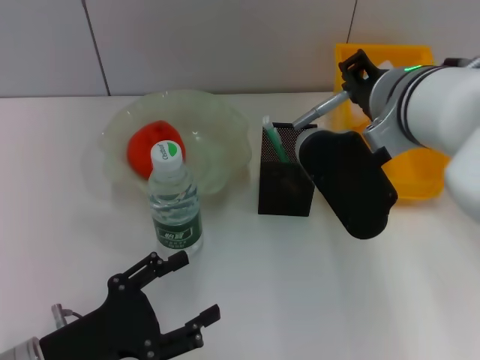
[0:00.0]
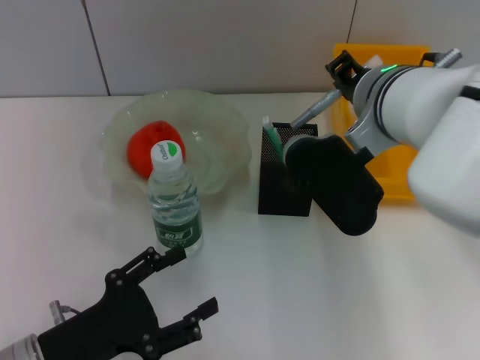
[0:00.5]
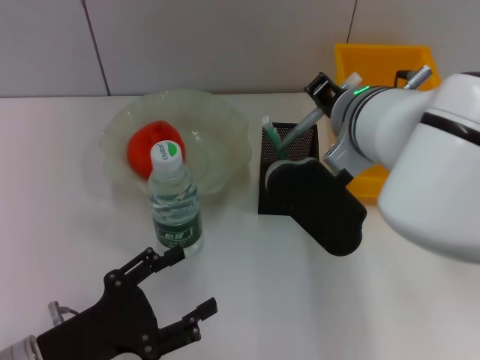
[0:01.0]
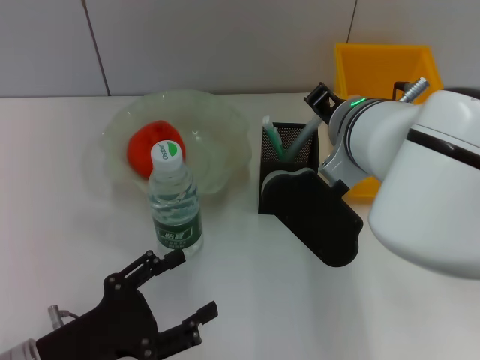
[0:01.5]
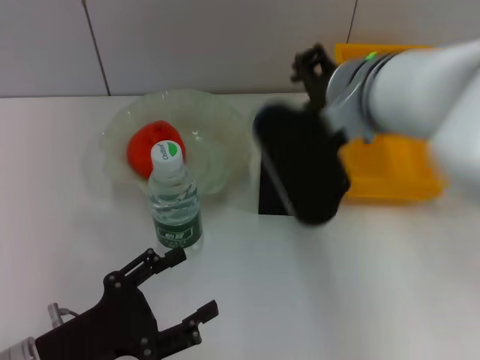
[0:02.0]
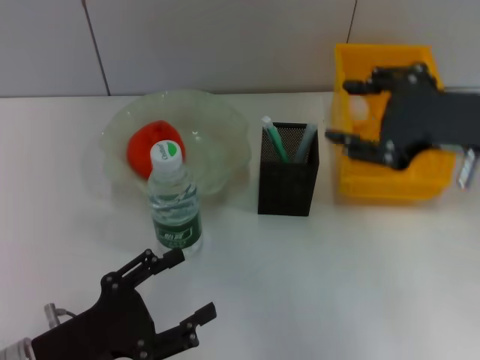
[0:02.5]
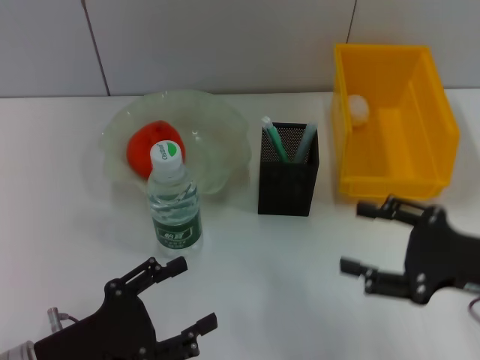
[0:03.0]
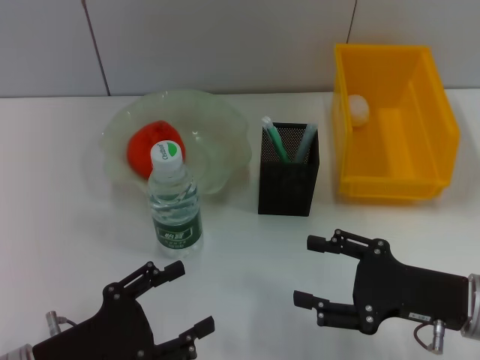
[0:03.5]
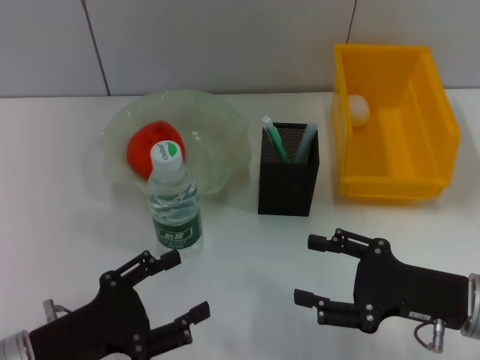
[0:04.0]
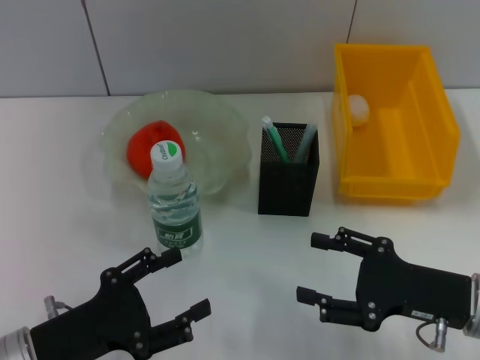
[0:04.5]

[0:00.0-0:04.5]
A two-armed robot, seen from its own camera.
0:00.0 to 0:02.0: The right gripper opens its fingers.
0:02.0 to 0:04.5: The right gripper moves downward, to the right and backward, some 25 cm, and opens.

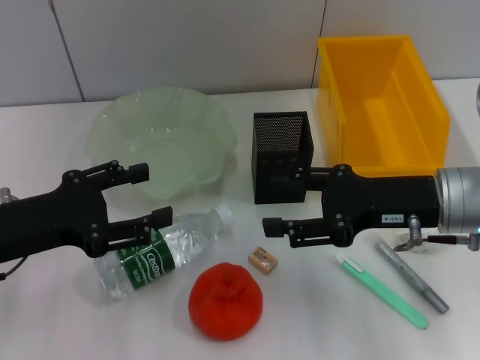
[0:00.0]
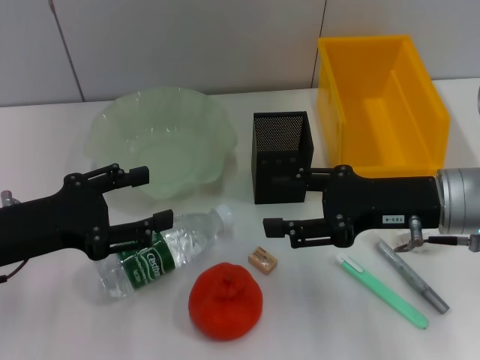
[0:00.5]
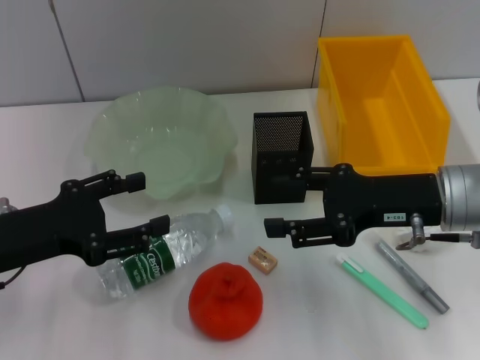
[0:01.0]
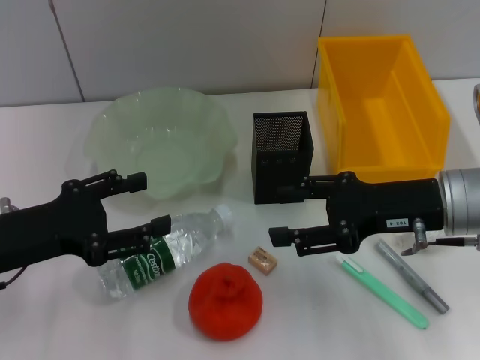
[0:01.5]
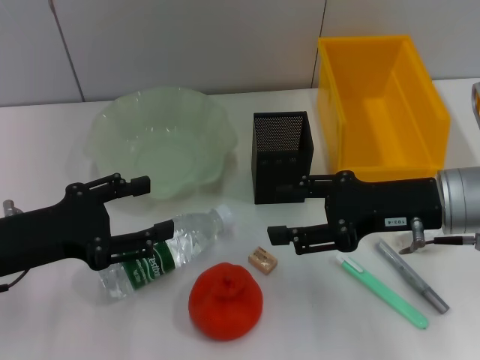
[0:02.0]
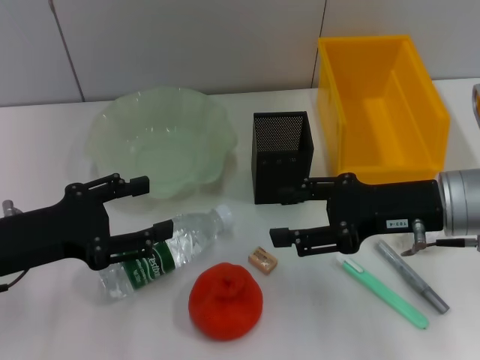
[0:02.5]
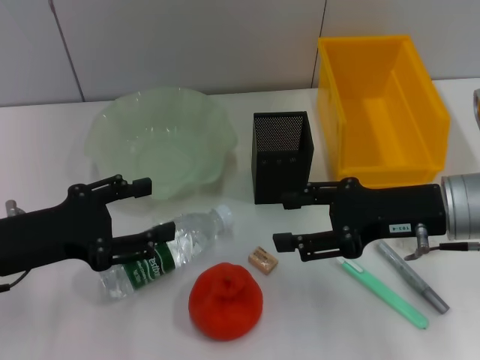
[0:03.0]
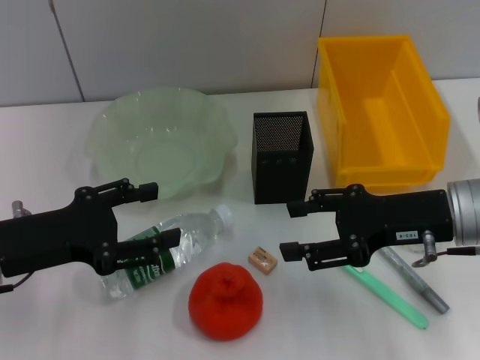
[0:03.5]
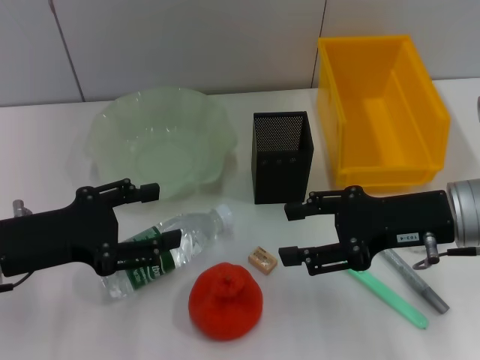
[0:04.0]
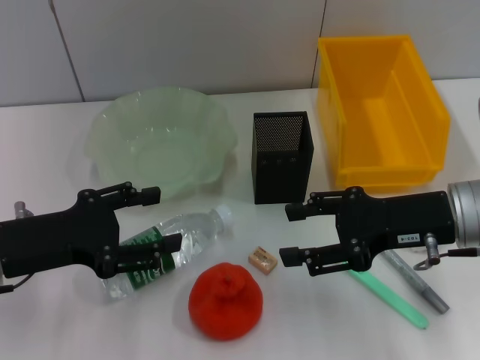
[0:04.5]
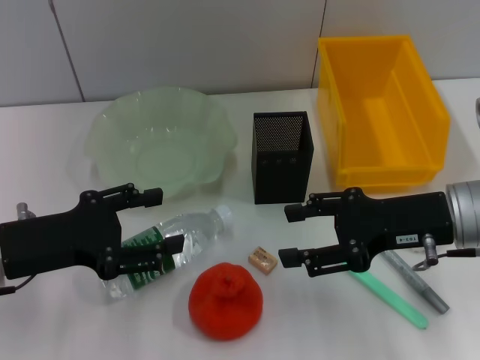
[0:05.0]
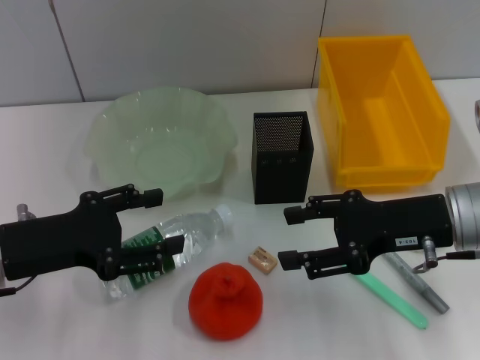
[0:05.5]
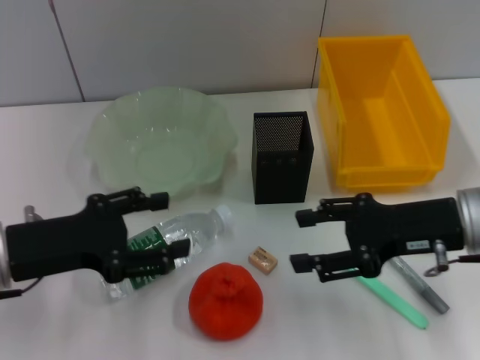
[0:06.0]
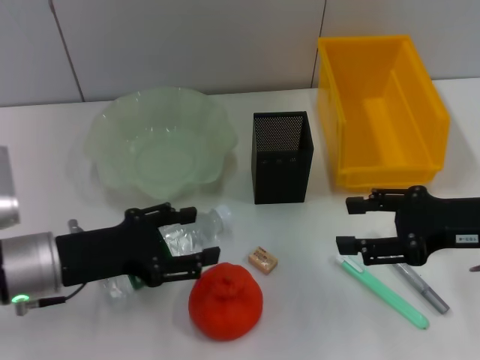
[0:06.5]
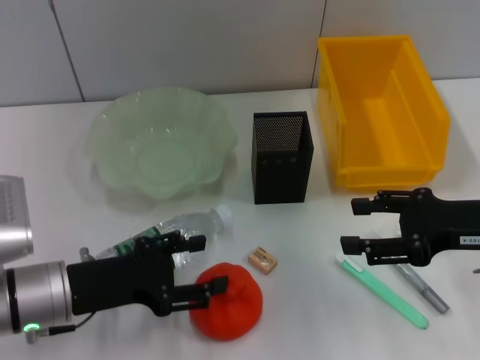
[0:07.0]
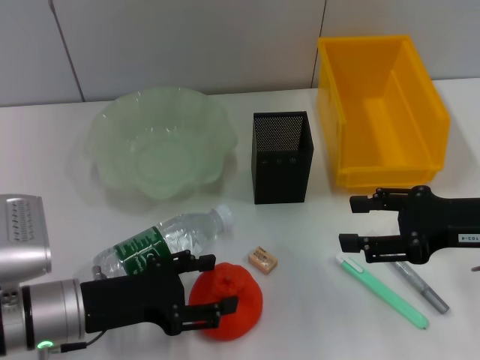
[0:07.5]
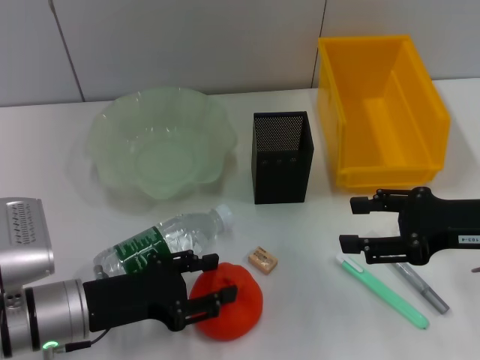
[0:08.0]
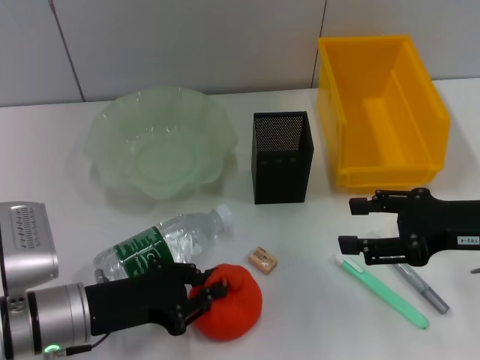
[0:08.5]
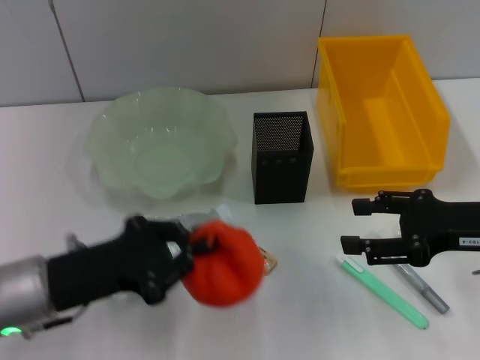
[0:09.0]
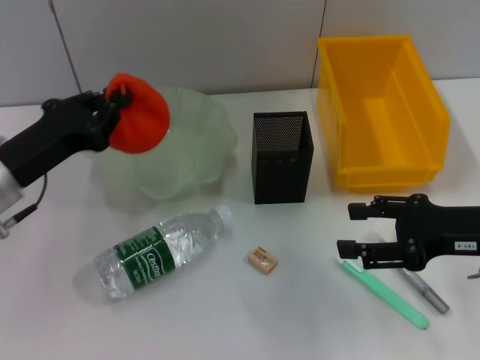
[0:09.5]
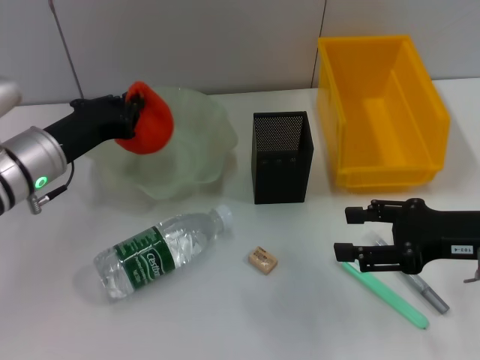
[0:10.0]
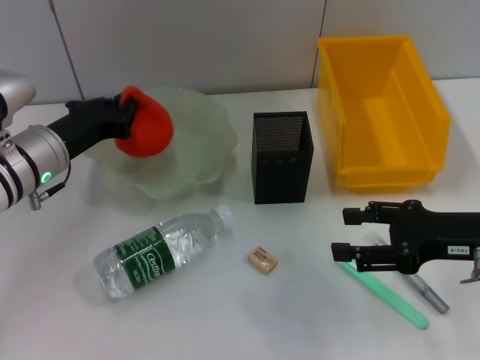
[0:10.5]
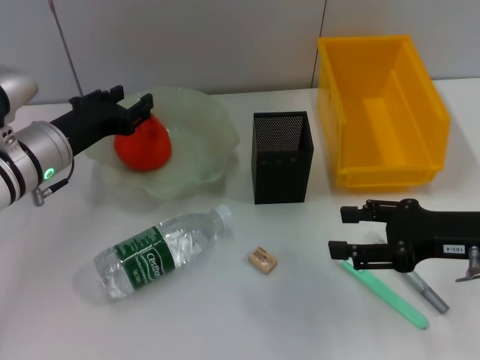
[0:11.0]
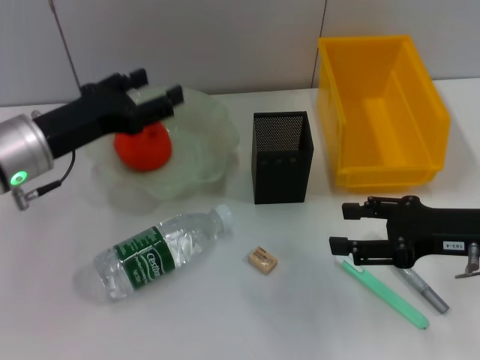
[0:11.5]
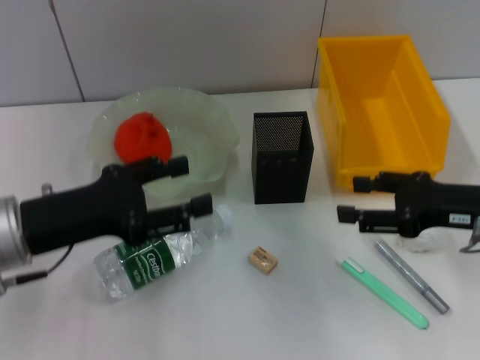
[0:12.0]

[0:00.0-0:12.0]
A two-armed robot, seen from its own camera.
Step, 0:00.0 to 0:08.5: Grab the orange with the left hand.
Step, 0:09.0 to 0:11.0: Place the orange into the fruit bowl with the left hand.
0:00.0 to 0:02.0: Neither gripper changes place.
0:02.0 to 0:04.0: The two grippers keep their place.
0:04.0 to 0:06.0: The two grippers keep their place.
0:06.0 to 0:08.0: The left gripper goes roughly 10 cm downward.
0:08.0 to 0:10.0: The left gripper travels forward and upward by about 15 cm, and closes up.
0:10.0 to 0:12.0: The left gripper goes about 10 cm backward, and opens.

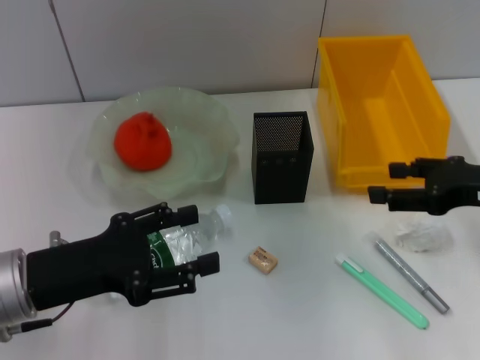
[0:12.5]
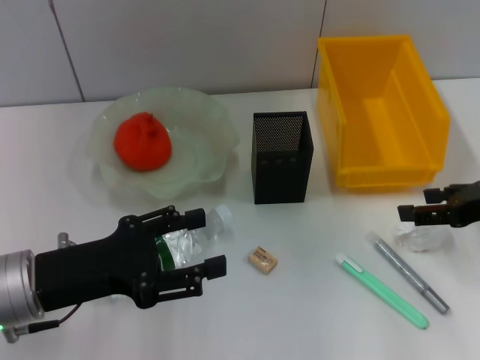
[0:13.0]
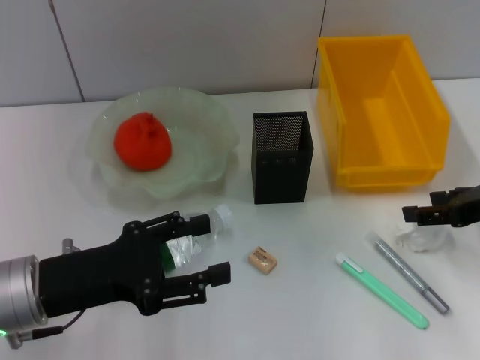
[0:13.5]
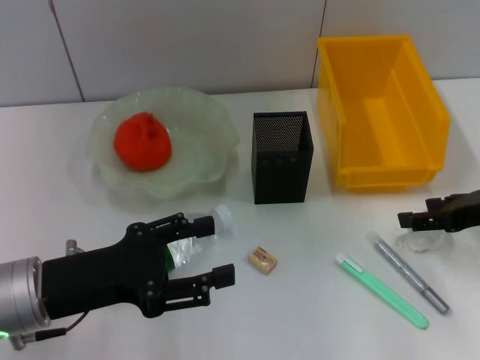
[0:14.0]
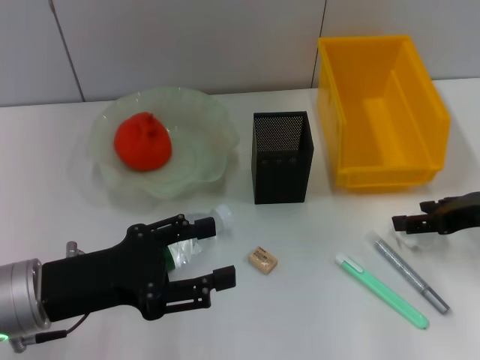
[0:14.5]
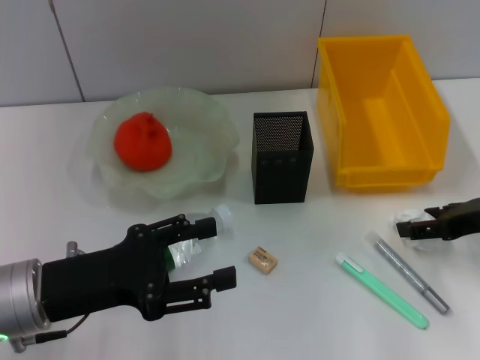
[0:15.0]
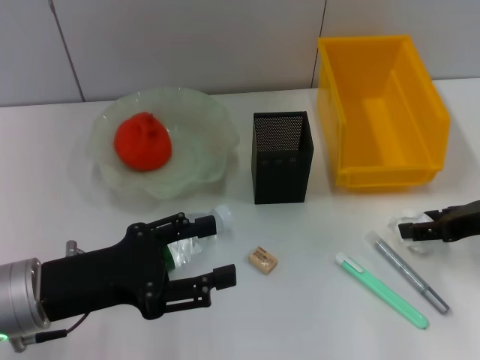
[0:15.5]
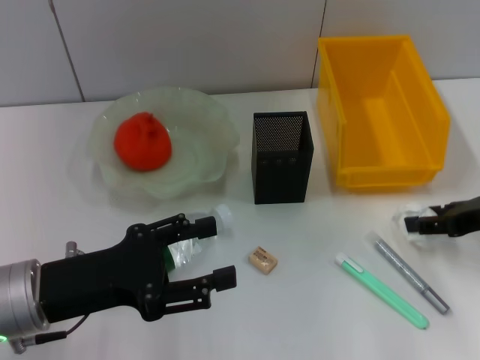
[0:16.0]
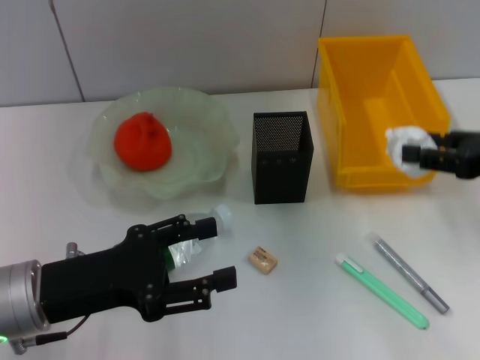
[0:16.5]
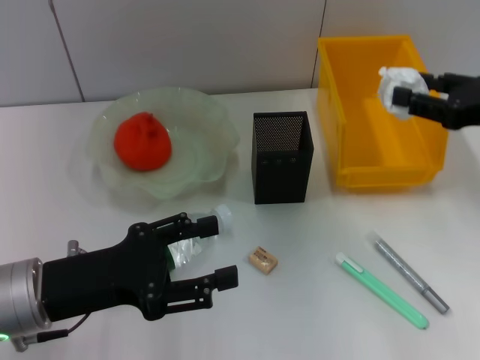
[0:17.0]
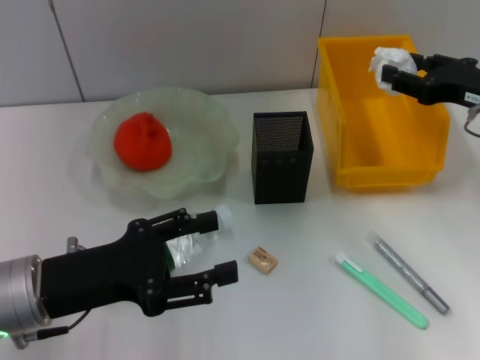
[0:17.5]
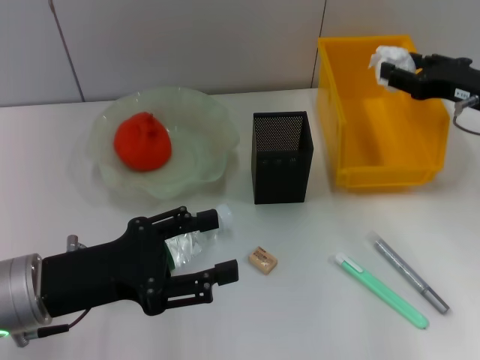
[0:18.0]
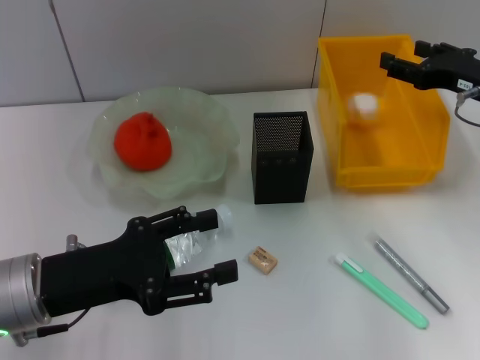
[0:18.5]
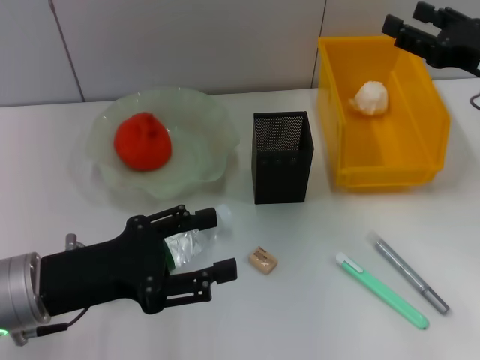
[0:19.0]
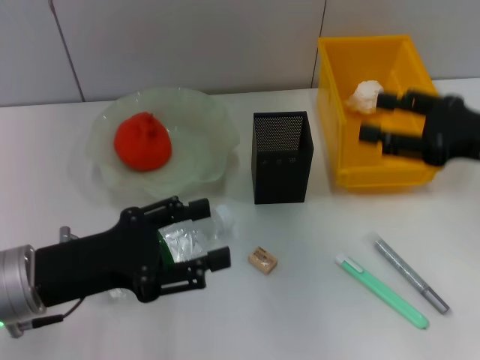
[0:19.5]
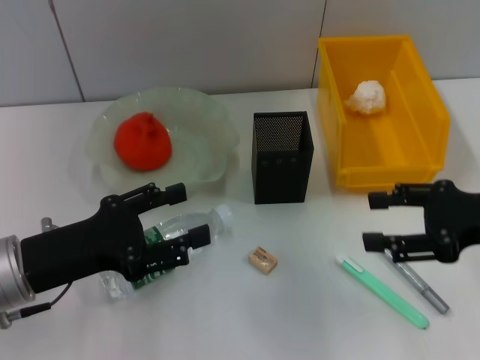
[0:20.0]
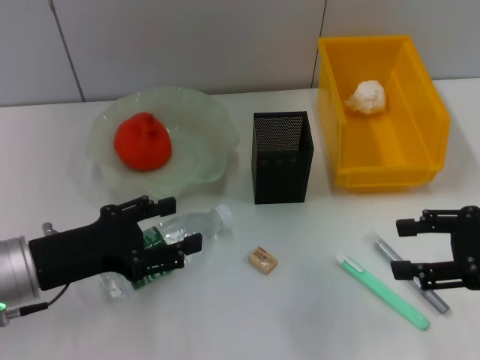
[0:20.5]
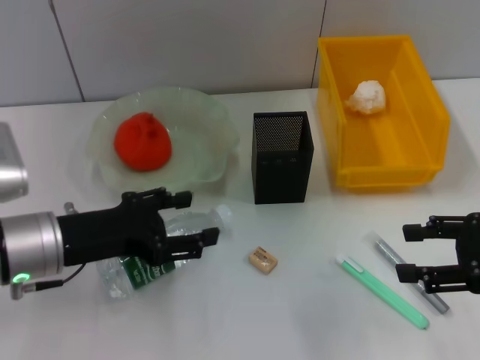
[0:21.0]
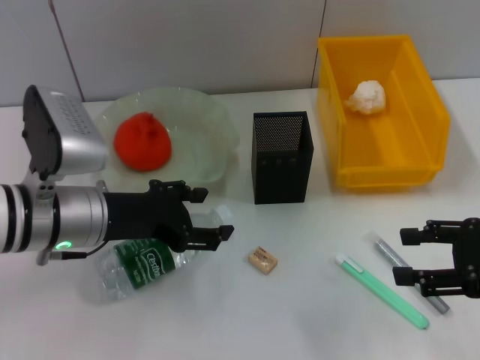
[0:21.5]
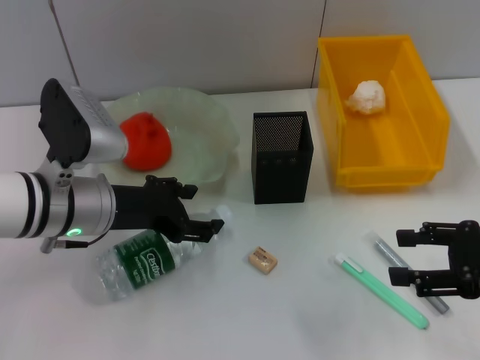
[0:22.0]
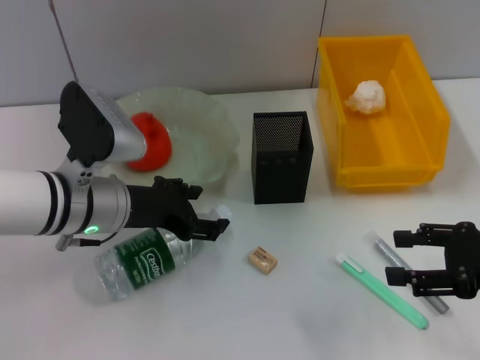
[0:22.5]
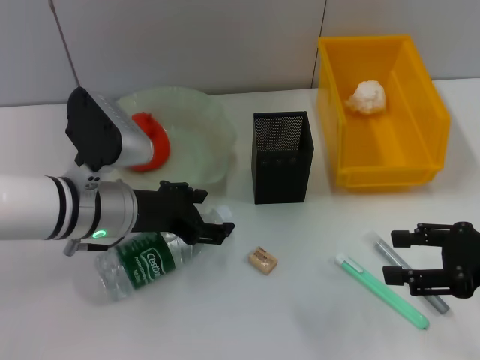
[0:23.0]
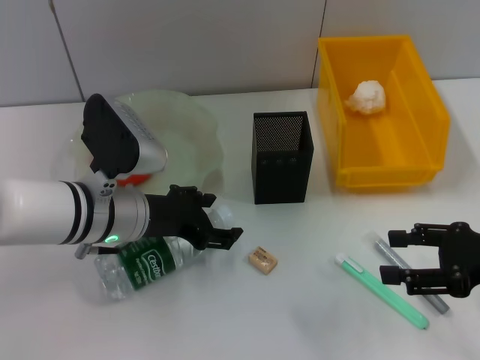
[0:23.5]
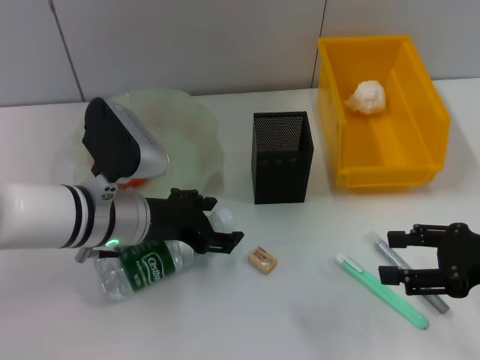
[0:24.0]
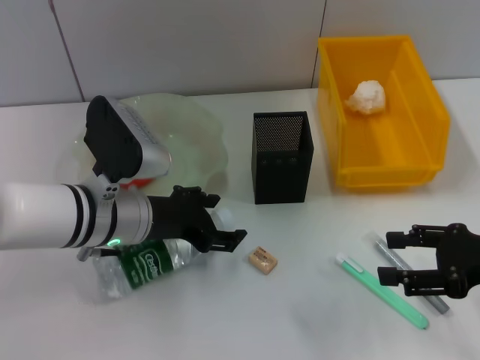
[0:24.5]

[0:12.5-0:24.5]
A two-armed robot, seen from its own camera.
Step, 0:12.5 to 0:15.5: Grab the paper ball with the right hand.
Step, 0:16.0 to 0:18.5: Place the paper ball into the trash can with the right hand.
0:14.5 to 0:16.5: The right gripper moves upward, approximately 5 cm.
0:16.5 to 0:18.5: The right gripper heads forward, covering roughly 10 cm.
0:18.5 to 0:20.5: The right gripper goes approximately 15 cm backward.
0:20.5 to 0:22.5: The left gripper travels to the right and forward by approximately 10 cm.
0:22.5 to 0:24.5: The grippers move only a little.
